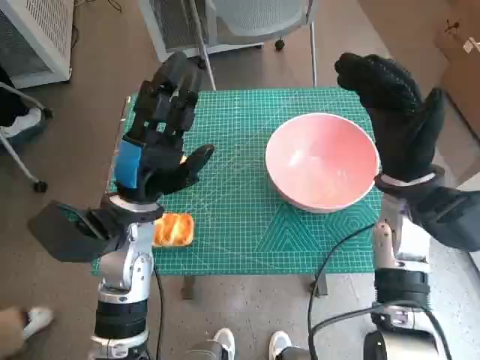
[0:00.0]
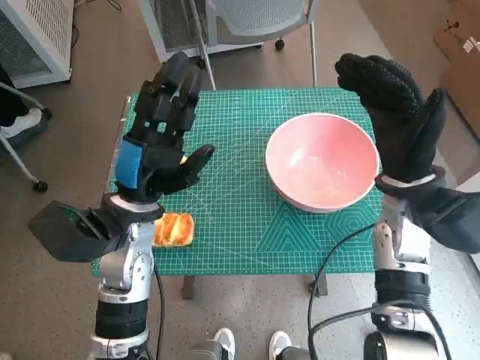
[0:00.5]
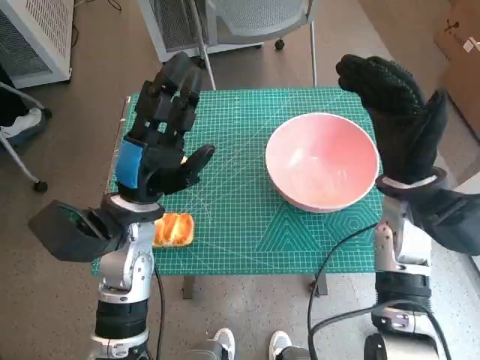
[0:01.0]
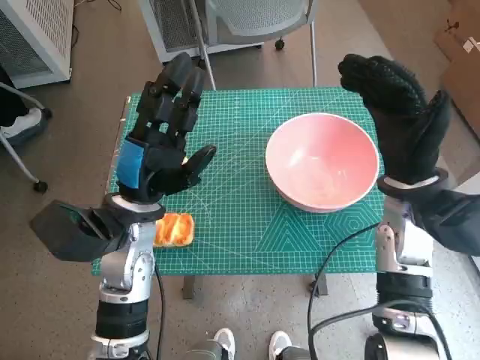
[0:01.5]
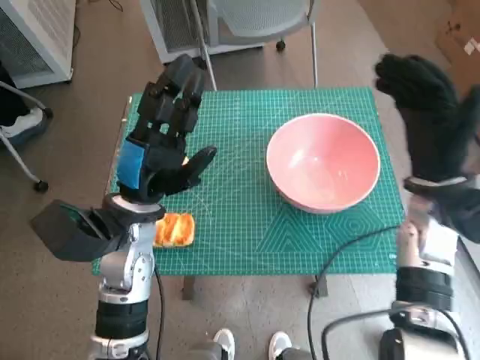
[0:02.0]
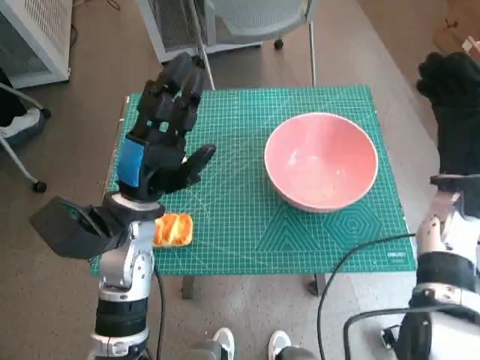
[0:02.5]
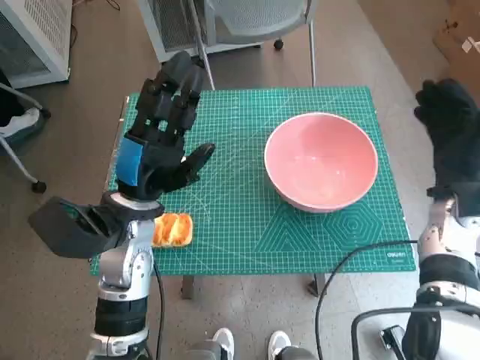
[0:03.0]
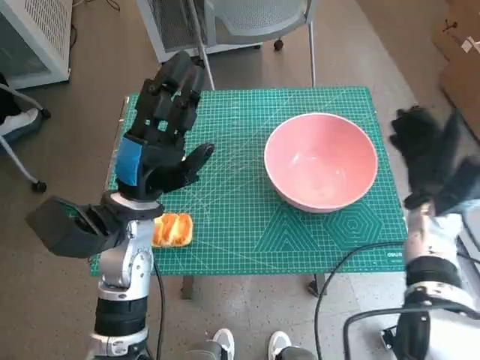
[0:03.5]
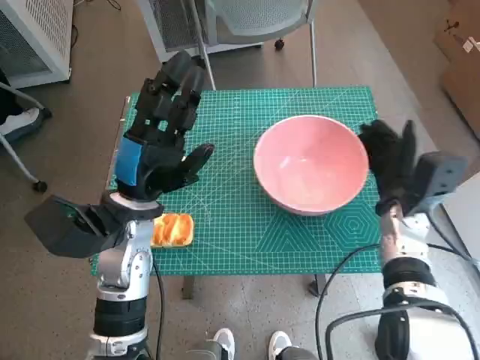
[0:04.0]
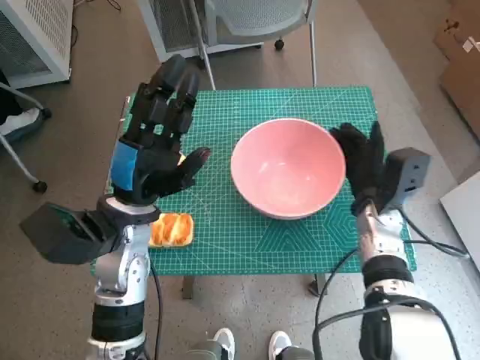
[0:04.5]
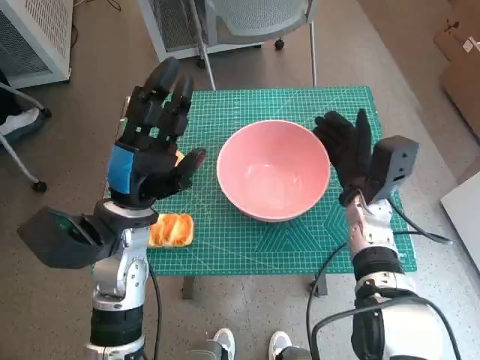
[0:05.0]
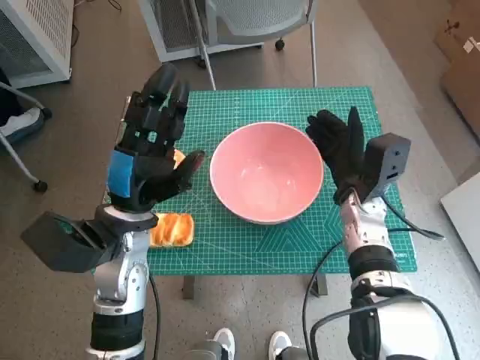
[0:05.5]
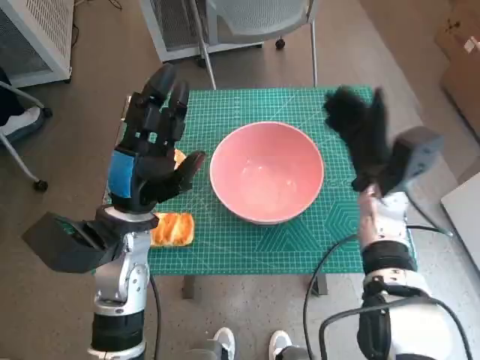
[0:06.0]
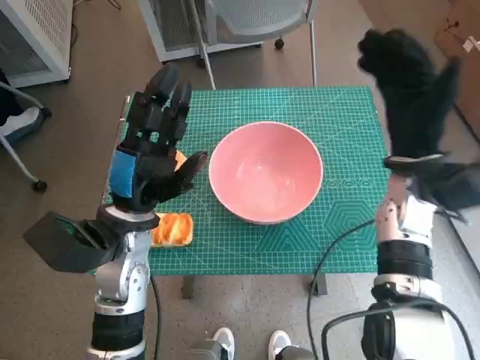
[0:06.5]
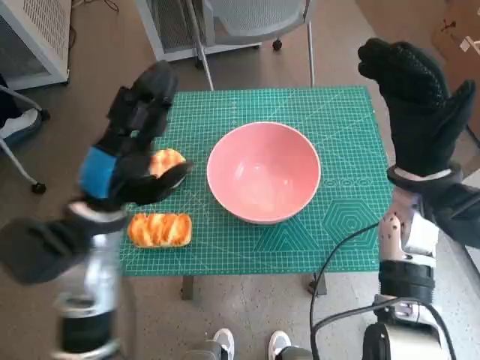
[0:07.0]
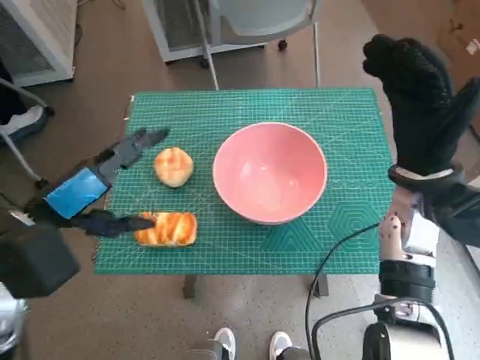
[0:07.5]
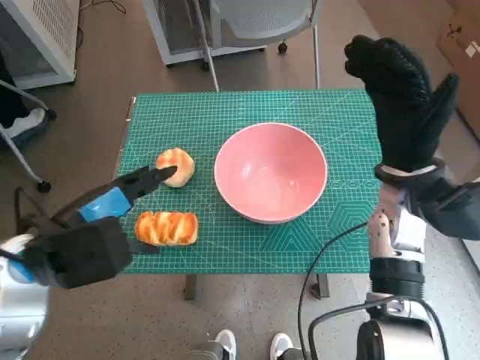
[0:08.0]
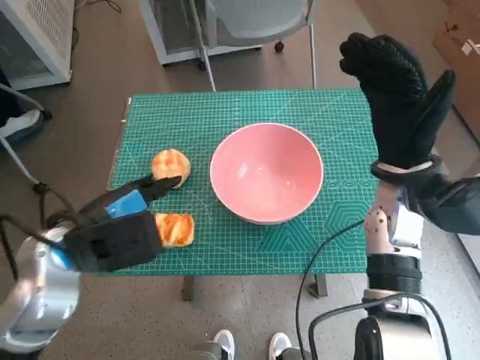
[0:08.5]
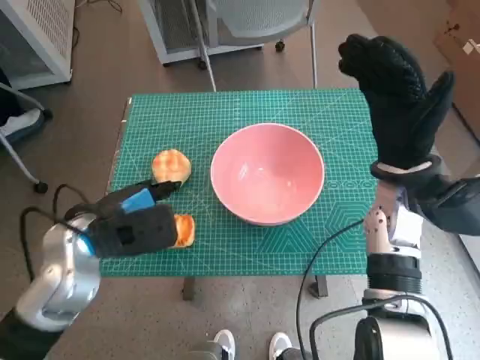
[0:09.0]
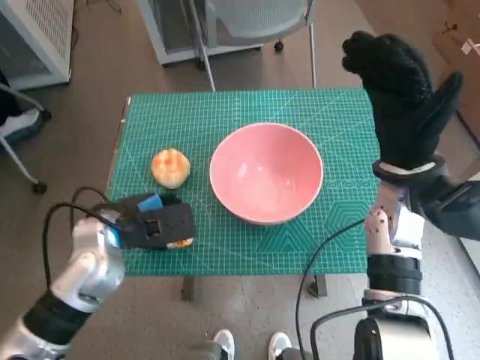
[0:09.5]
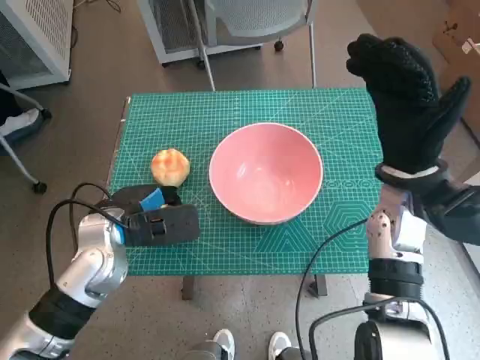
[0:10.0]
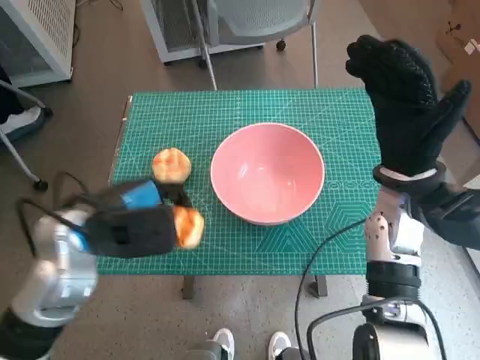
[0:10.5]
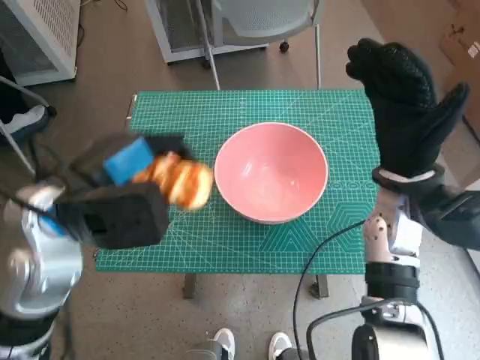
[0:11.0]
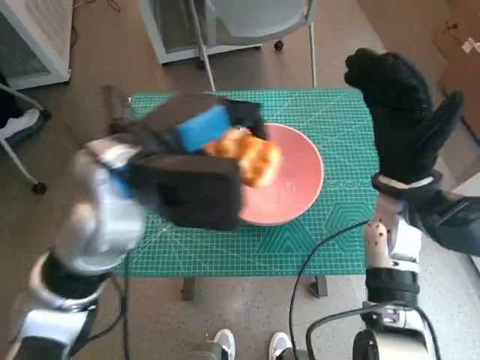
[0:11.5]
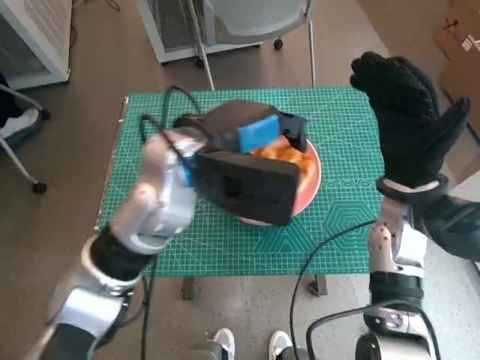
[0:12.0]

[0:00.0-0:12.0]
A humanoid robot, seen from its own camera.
Step, 0:00.0 to 0:05.5: Move the pink bowl to the center of table with right hand.
Step, 0:06.0 to 0:09.5: Grasp the long bread with left hand.
0:02.0 to 0:04.0: The right hand moves downward, roughly 10 cm.
0:04.0 to 0:06.0: The right hand shifts by some 5 cm.
0:06.0 to 0:08.0: The right hand heads upward, covering approximately 5 cm, while the left hand shifts approximately 10 cm upward, to the left and backward.
0:08.0 to 0:10.0: The left hand goes roughly 10 cm downward and forward.
0:10.0 to 0:12.0: The left hand heads upward and to the right, covering some 20 cm.

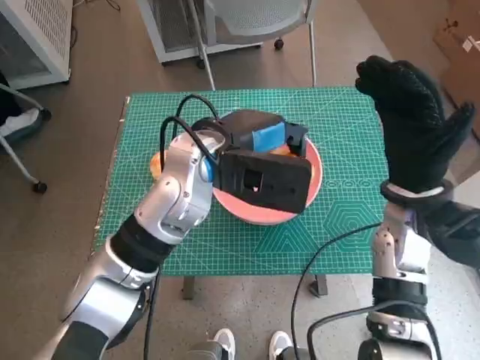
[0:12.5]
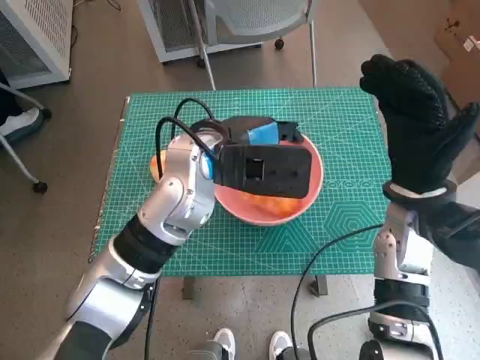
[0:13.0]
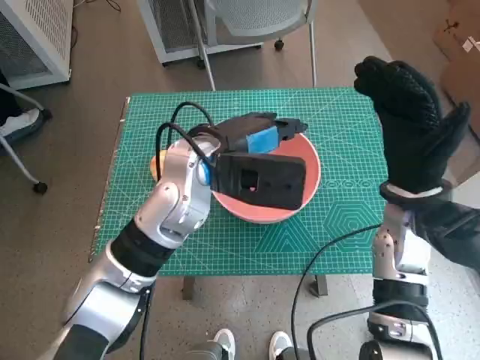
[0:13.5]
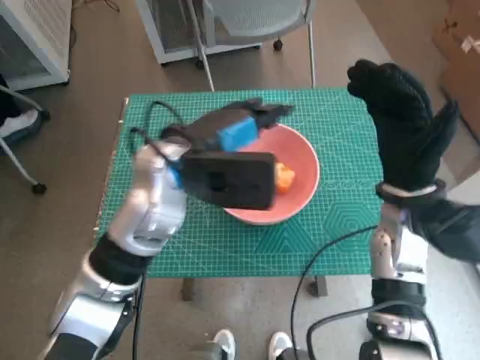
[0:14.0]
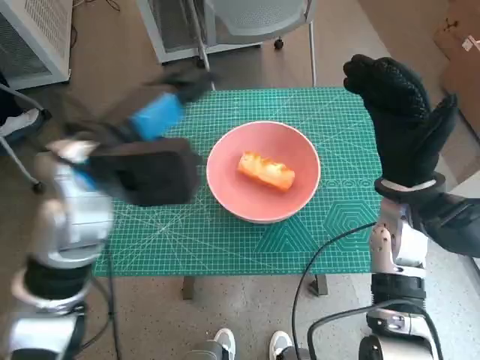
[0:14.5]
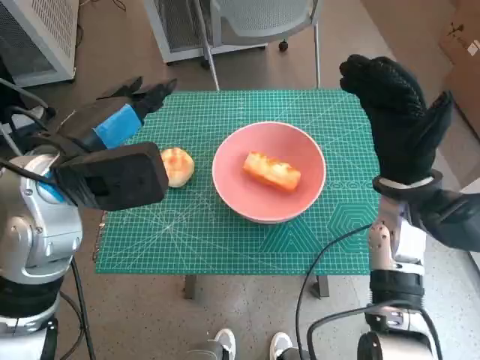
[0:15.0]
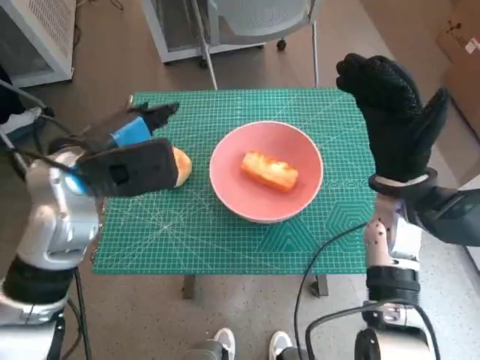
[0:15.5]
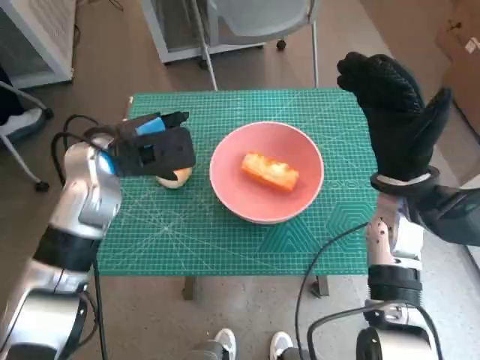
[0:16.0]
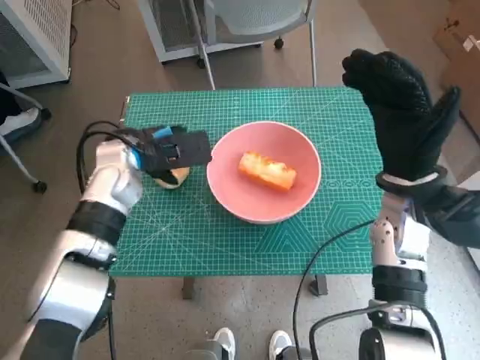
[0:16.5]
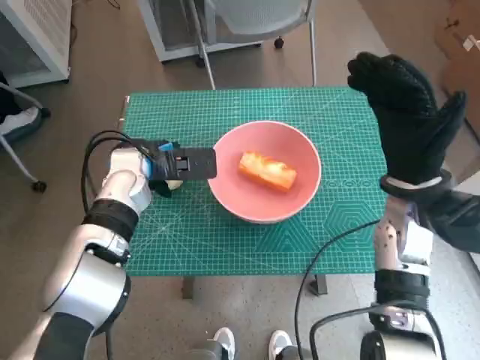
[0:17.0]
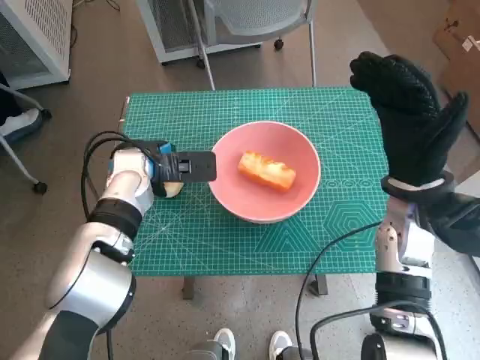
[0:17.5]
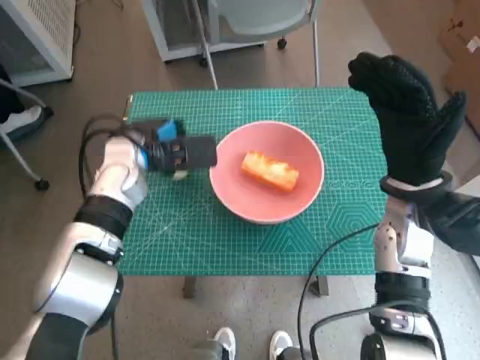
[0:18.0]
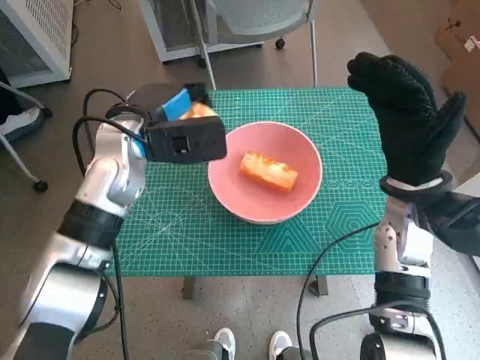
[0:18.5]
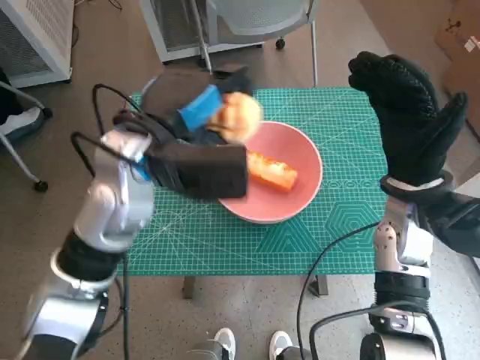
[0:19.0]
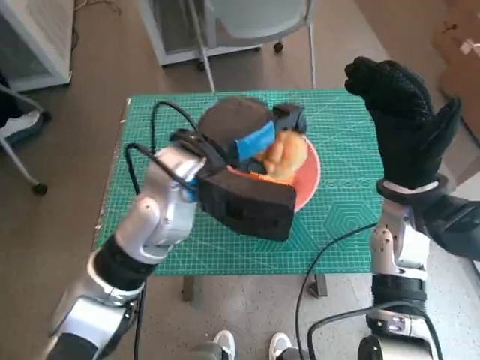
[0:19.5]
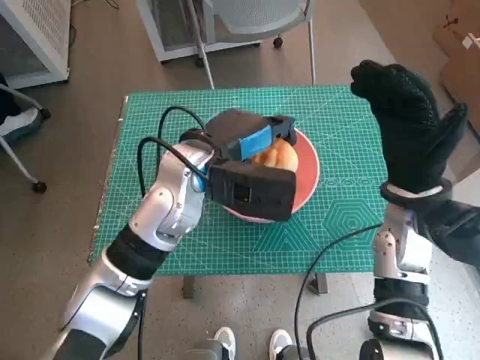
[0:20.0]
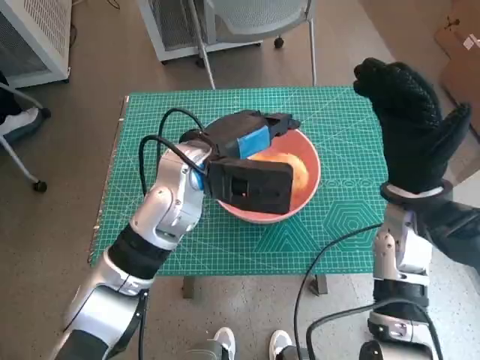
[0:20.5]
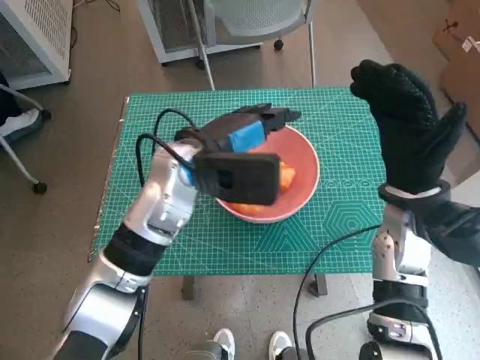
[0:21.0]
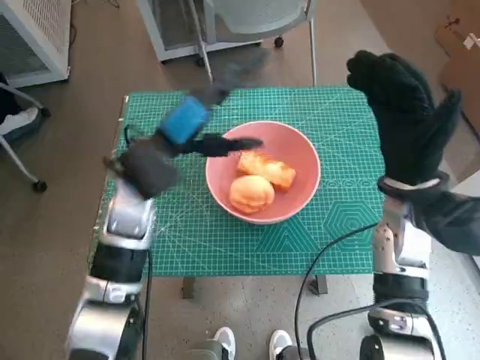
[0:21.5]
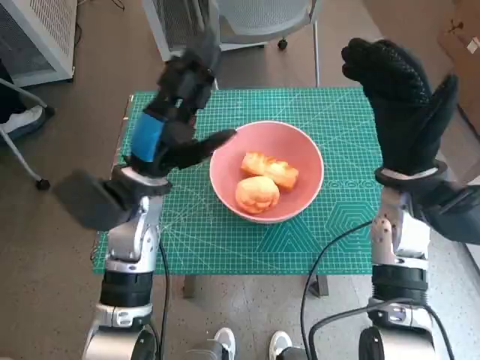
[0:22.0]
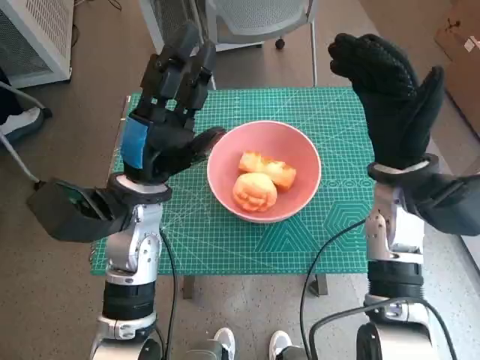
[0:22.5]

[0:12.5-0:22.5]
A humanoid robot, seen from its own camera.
Step, 0:14.0 to 0:17.5: Grasp the round bread with left hand.
Step, 0:18.0 to 0:20.5: Place the round bread in pink bowl with left hand.
0:12.5 to 0:14.5: The left hand goes about 10 cm to the left.
0:14.5 to 0:16.5: The left hand heads downward and forward, covering approximately 15 cm.
0:16.5 to 0:18.5: The left hand moves about 5 cm.
0:18.5 to 0:20.5: The left hand heads to the right, covering about 10 cm.
0:20.5 to 0:22.5: The left hand shifts about 5 cm to the left.

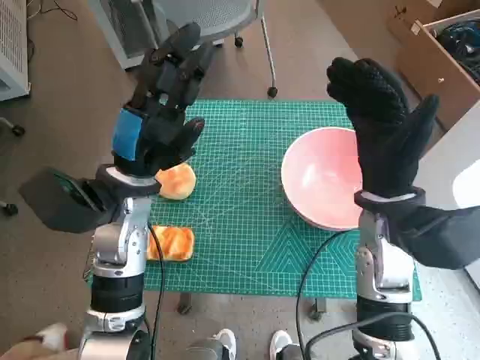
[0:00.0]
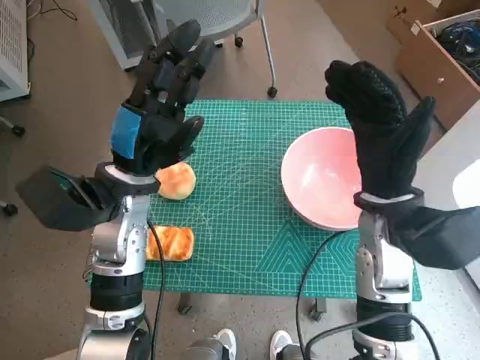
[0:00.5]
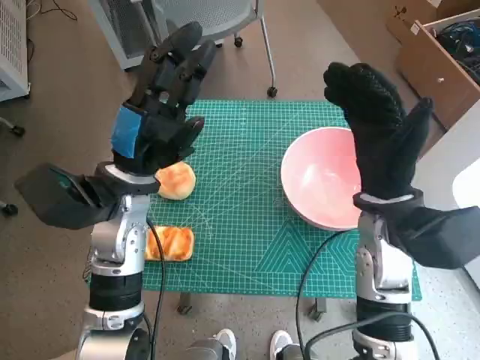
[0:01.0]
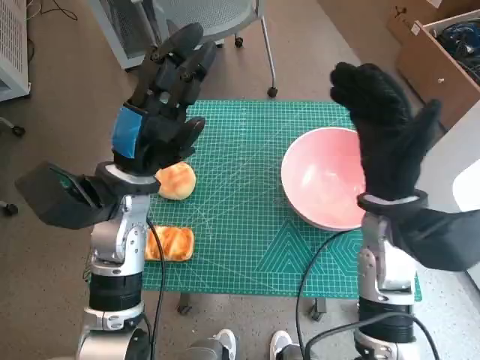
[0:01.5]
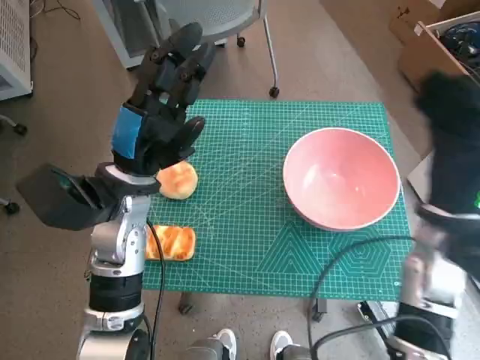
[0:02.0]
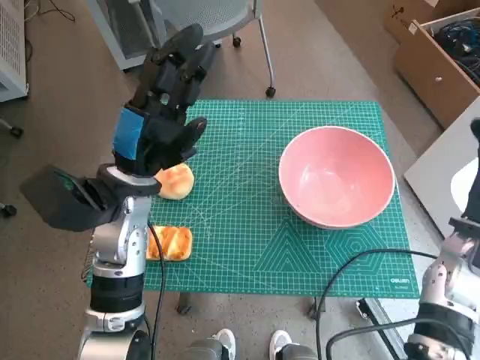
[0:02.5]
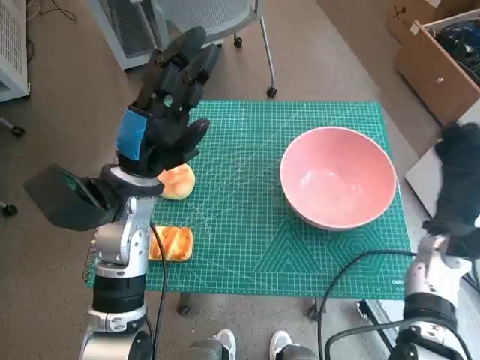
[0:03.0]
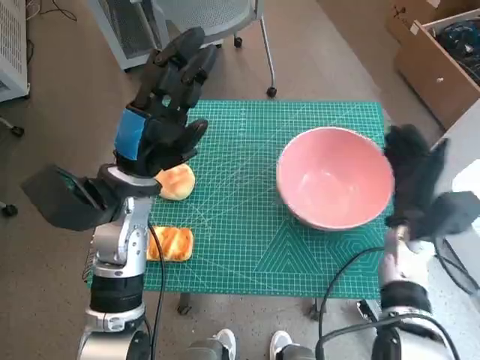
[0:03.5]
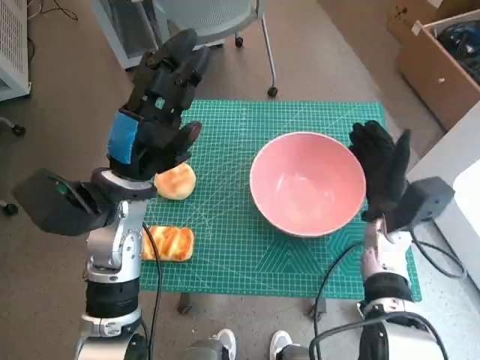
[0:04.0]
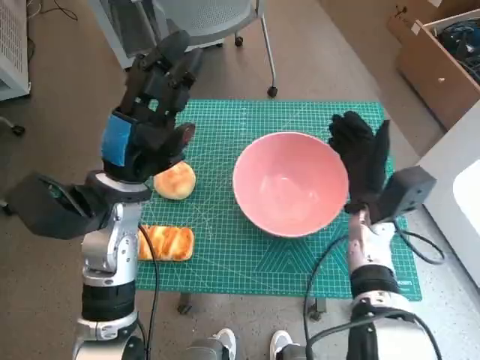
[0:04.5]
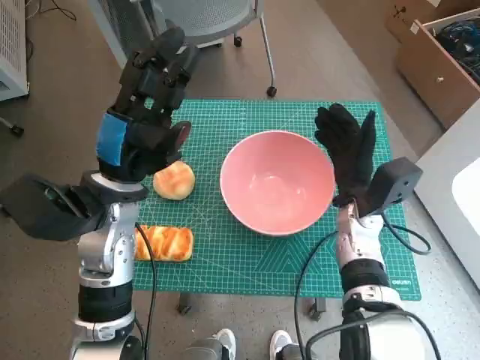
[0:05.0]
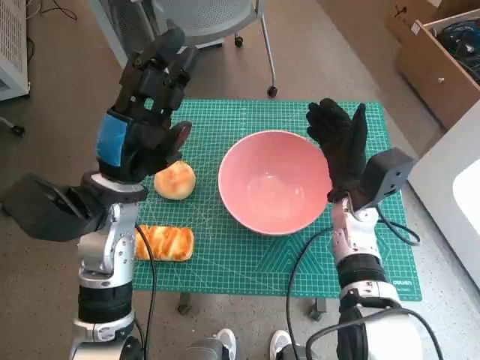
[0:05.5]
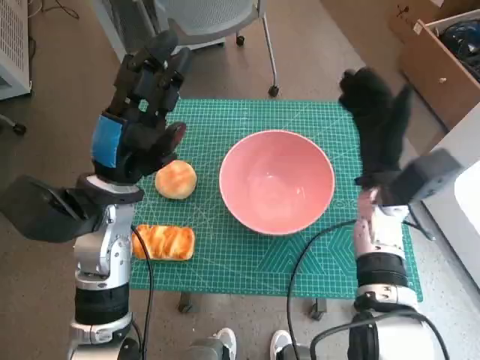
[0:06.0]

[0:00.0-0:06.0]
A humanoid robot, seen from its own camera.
Step, 0:00.0 to 0:05.0: Move the pink bowl to the center of table with right hand.
0:02.0 to 0:04.0: The right hand moves downward, approximately 10 cm.
0:04.0 to 0:06.0: The right hand is displaced upward by some 5 cm.
